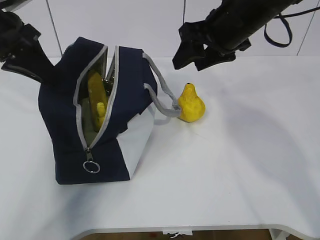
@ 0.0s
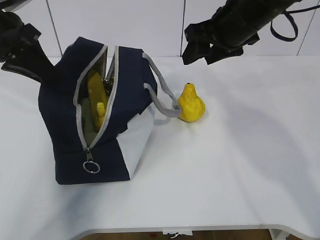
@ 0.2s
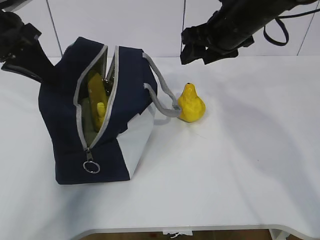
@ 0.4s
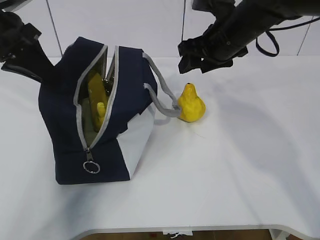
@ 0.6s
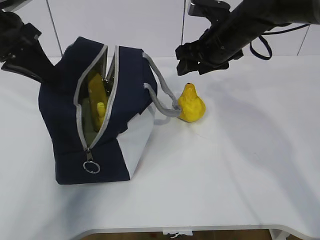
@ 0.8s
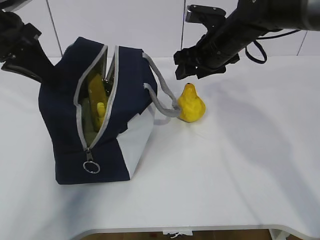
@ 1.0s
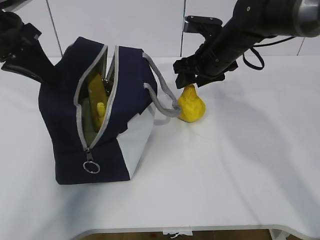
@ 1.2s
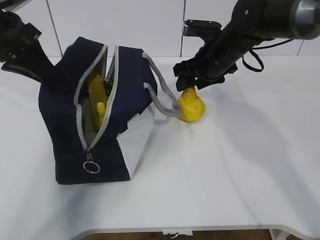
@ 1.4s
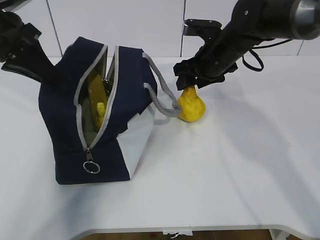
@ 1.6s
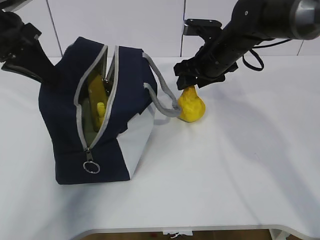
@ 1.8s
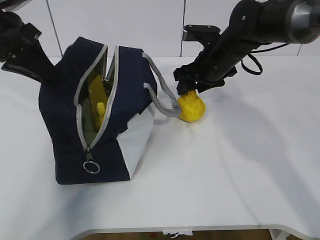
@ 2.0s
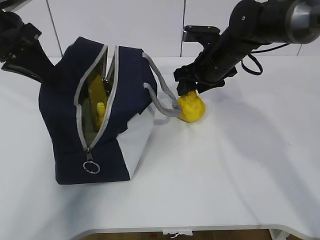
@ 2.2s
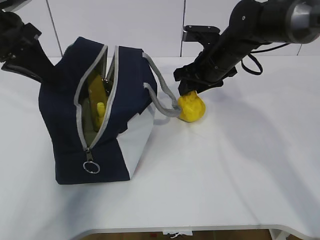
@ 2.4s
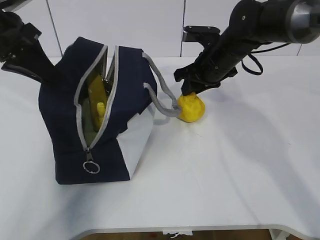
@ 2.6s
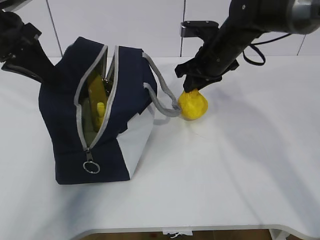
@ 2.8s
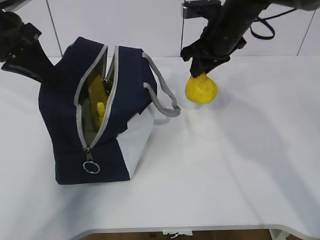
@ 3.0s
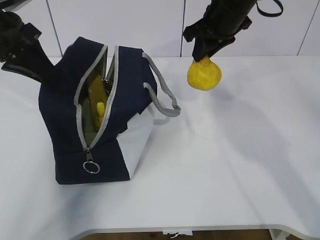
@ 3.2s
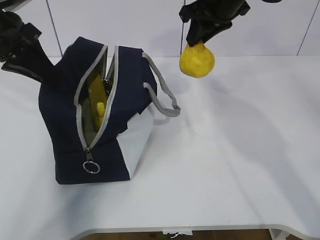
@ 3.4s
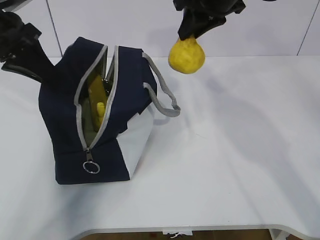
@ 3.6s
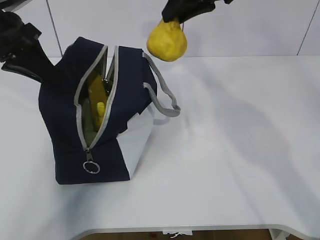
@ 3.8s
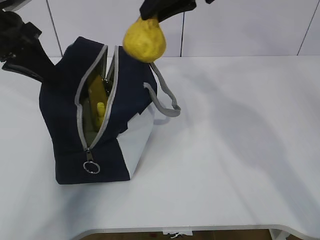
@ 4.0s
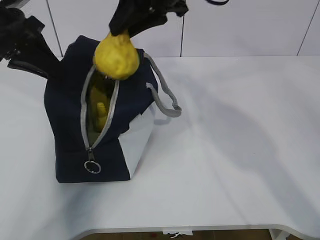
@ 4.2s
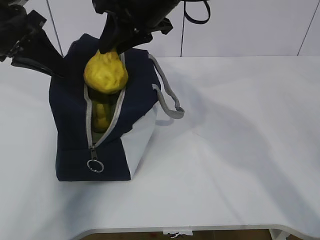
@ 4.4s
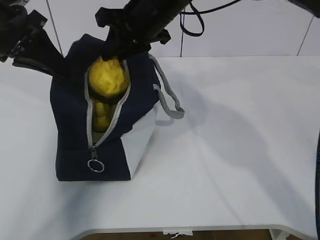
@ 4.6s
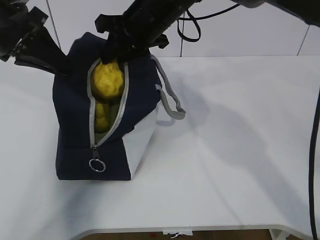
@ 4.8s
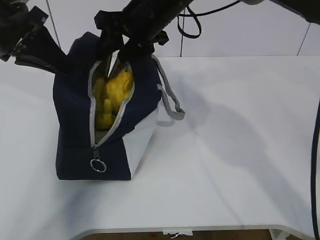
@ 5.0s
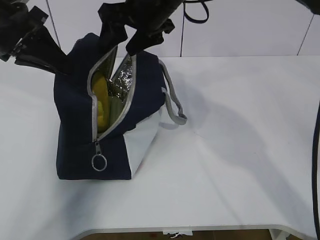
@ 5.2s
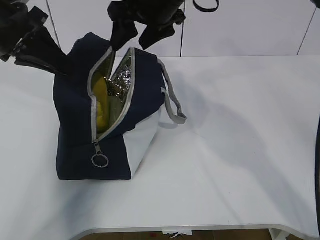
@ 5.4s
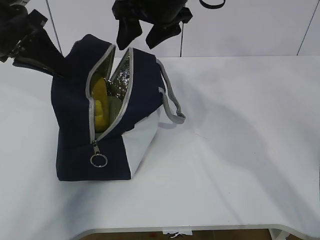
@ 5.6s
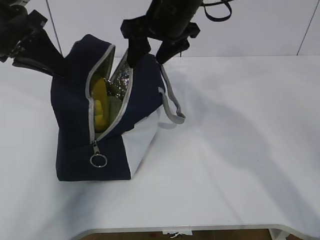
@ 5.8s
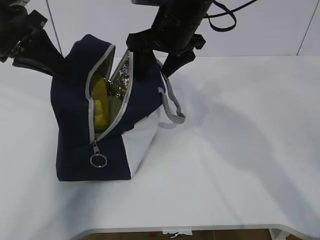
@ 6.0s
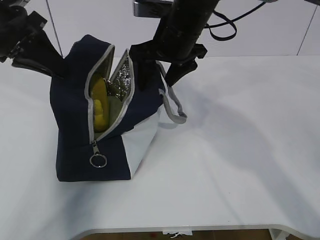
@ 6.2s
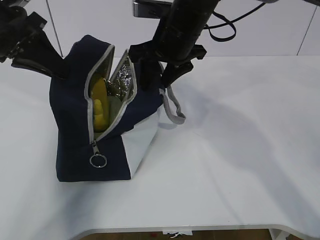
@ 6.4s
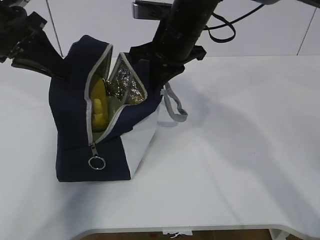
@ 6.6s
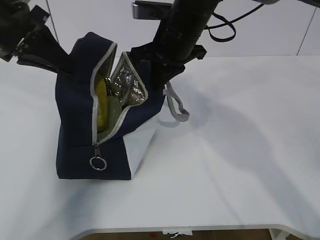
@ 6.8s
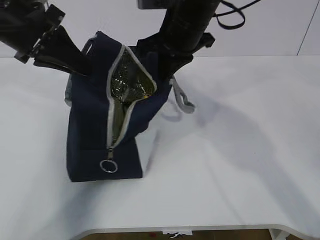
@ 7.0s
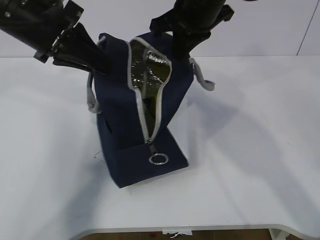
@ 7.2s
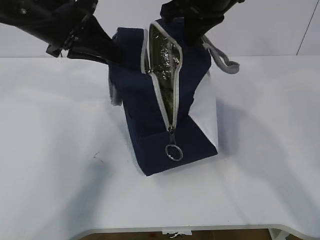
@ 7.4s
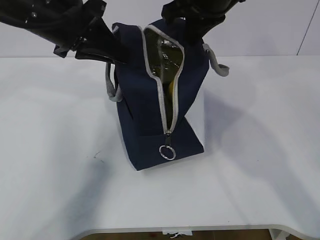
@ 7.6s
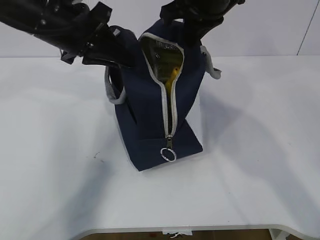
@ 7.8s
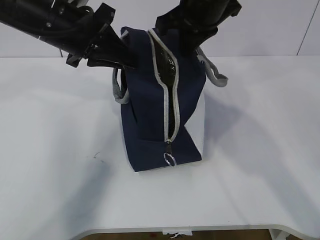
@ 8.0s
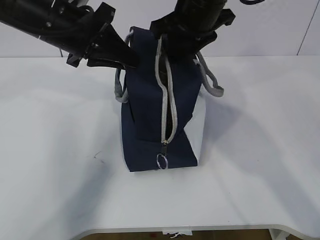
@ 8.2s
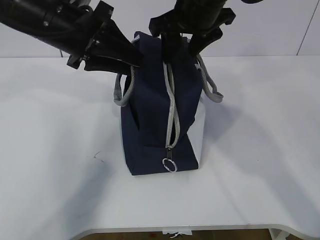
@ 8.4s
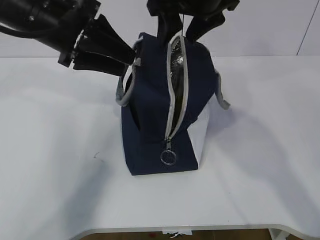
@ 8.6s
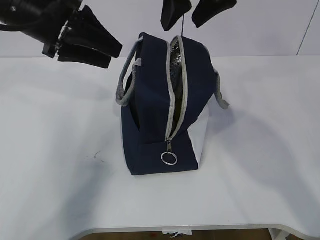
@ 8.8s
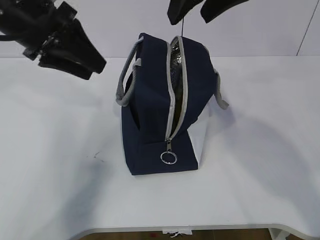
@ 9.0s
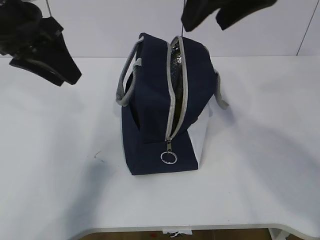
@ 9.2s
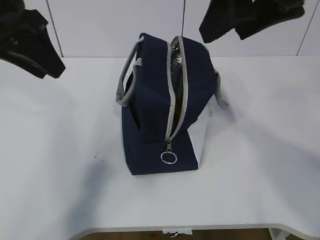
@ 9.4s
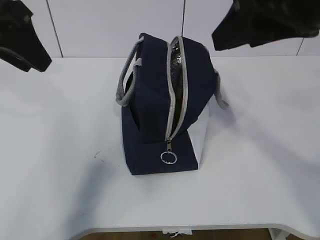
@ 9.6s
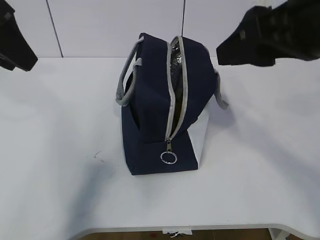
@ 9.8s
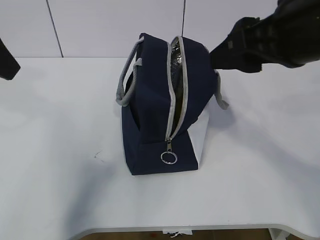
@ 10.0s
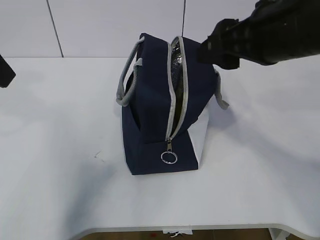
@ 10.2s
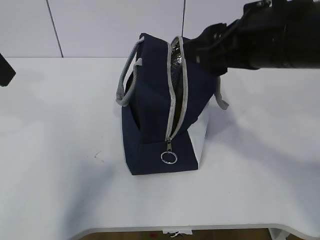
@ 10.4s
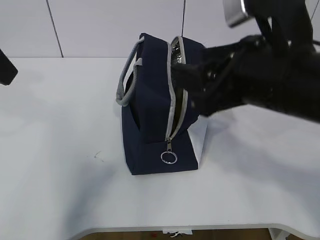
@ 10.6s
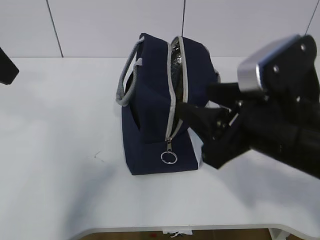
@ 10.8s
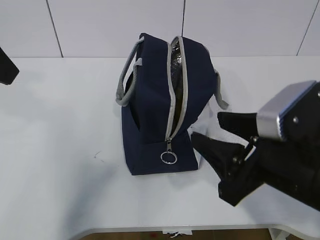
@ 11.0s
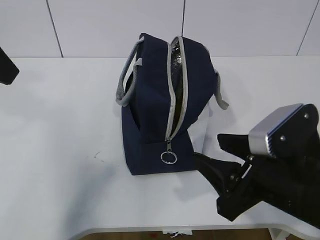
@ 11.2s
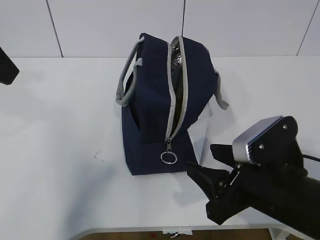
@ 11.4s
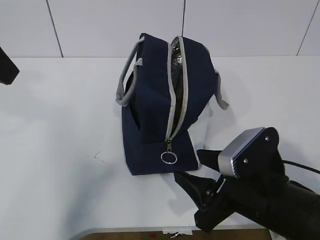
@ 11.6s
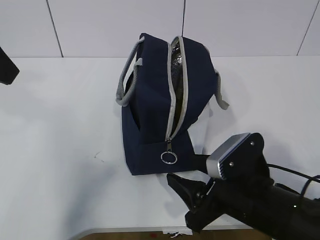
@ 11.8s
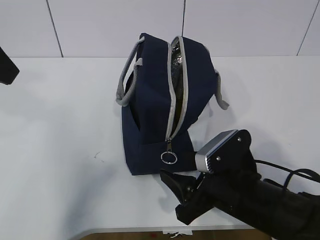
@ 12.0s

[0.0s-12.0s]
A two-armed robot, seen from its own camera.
Step, 0.2s to 1.4s: Grab the lunch bag with your right hand.
Step, 1.6s to 3.0s: Move the lunch bag to the right.
0.0s to 1.6s: The right gripper is displaced downward and forward by about 10 cm.
1.6s to 3.0s: The right gripper closes up.
3.0s to 4.4s: The right gripper moves to the left, upward and backward, about 15 cm.
4.4s to 6.0s: The right gripper opens its fingers.
6.0s to 7.6s: The right gripper goes some 5 cm upward, and closes. Meanwhile the left gripper shifts about 10 cm to the right.
7.6s to 9.0s: The left gripper opens its fingers. Meanwhile the right gripper moves about 5 cm, and opens its fingers.
9.0s to 10.4s: The left gripper moves backward, upward and to the left, roughly 15 cm; the right gripper shifts about 10 cm backward and downward.
10.4s to 12.0s: The right gripper heads downward, covering some 20 cm.

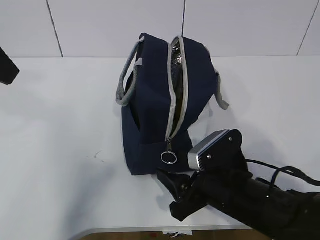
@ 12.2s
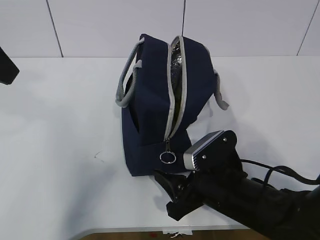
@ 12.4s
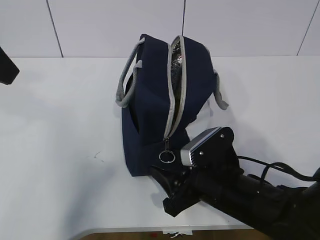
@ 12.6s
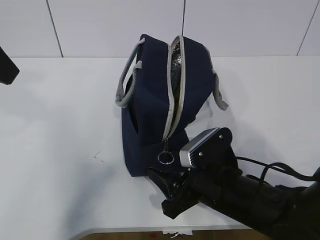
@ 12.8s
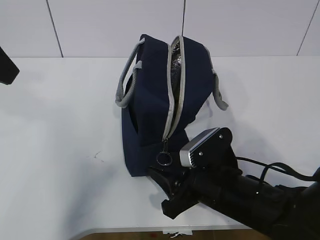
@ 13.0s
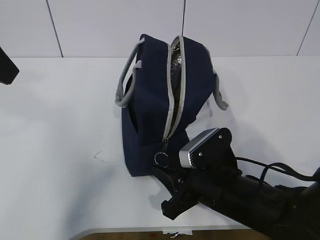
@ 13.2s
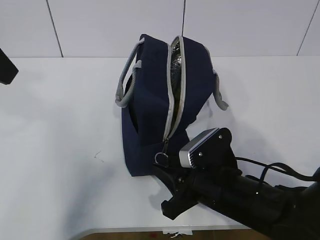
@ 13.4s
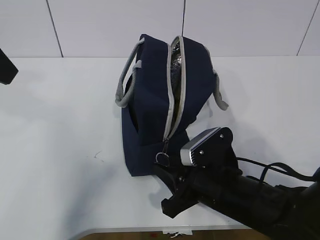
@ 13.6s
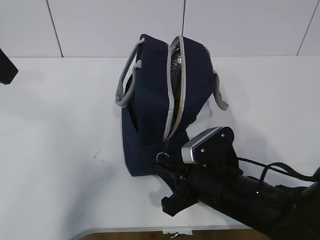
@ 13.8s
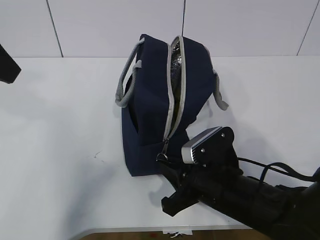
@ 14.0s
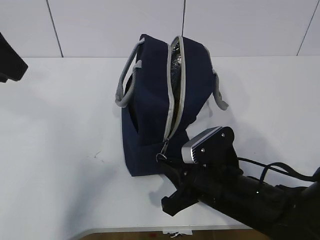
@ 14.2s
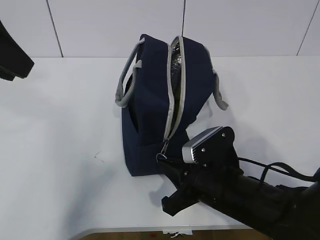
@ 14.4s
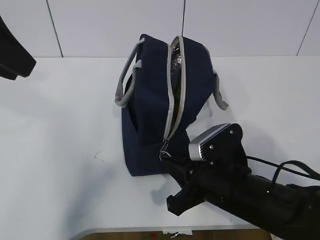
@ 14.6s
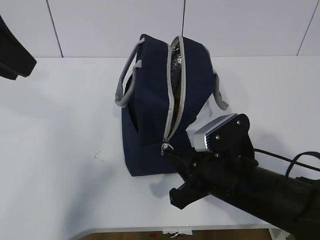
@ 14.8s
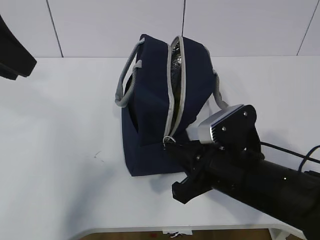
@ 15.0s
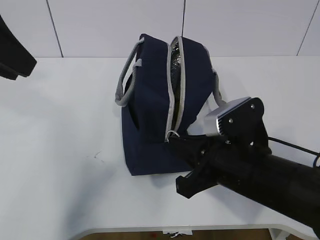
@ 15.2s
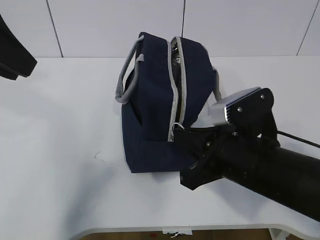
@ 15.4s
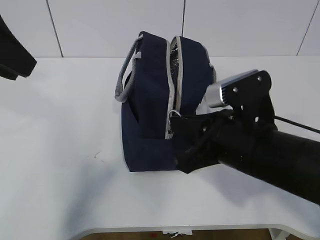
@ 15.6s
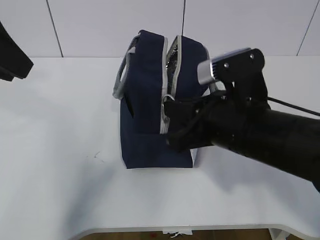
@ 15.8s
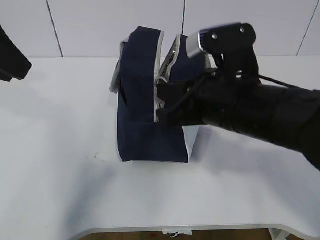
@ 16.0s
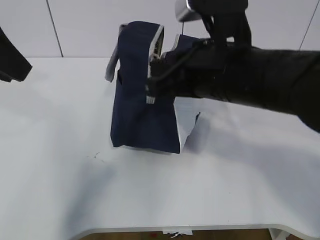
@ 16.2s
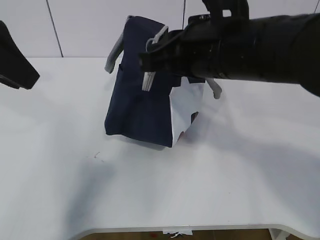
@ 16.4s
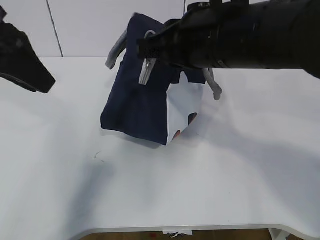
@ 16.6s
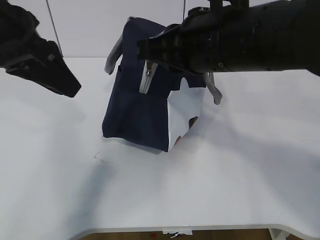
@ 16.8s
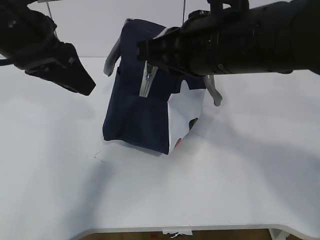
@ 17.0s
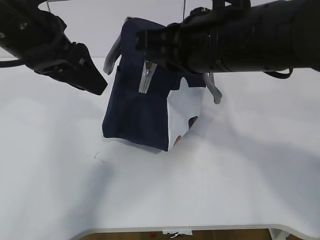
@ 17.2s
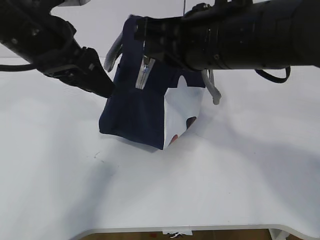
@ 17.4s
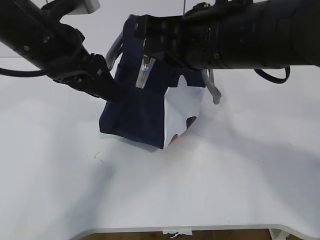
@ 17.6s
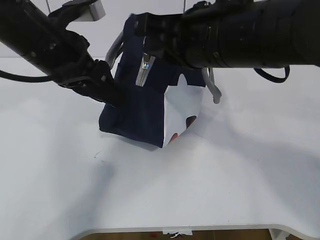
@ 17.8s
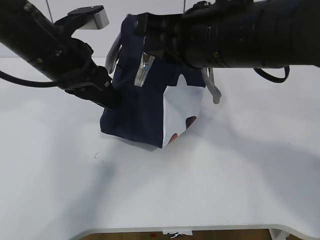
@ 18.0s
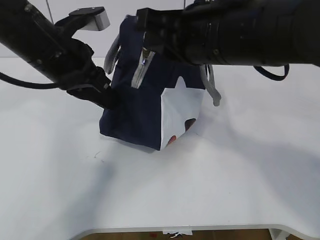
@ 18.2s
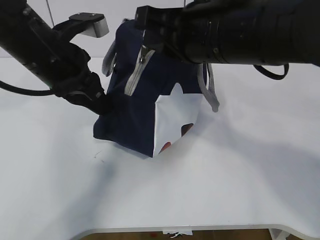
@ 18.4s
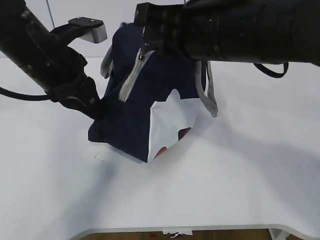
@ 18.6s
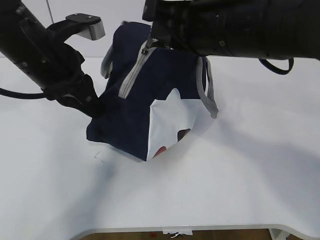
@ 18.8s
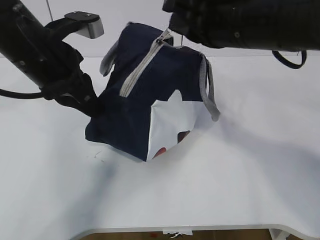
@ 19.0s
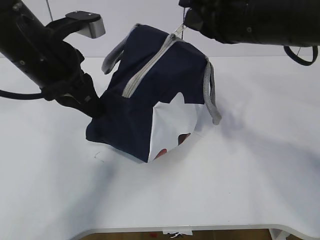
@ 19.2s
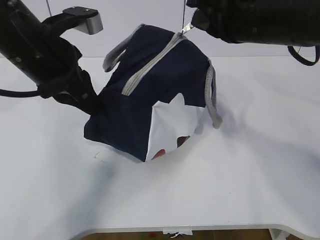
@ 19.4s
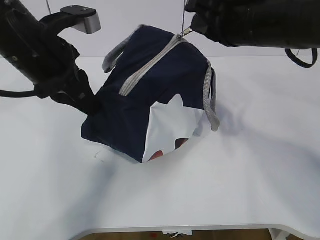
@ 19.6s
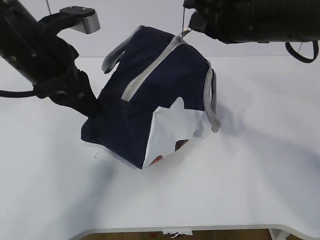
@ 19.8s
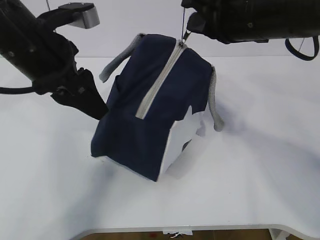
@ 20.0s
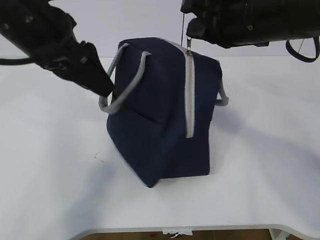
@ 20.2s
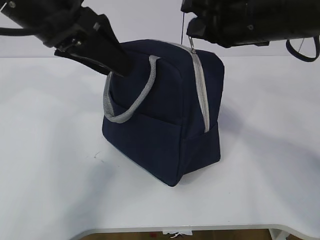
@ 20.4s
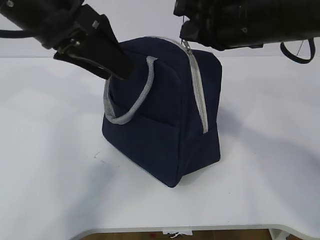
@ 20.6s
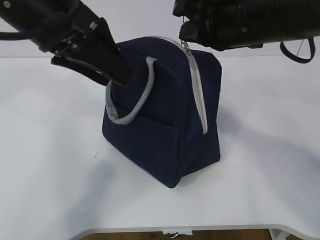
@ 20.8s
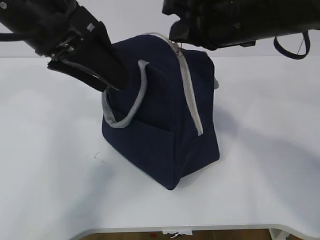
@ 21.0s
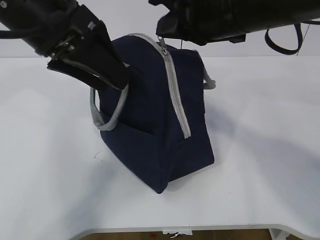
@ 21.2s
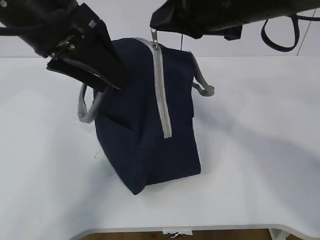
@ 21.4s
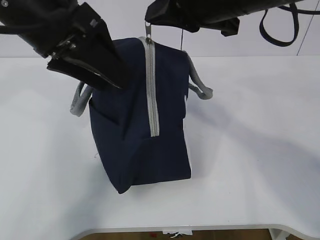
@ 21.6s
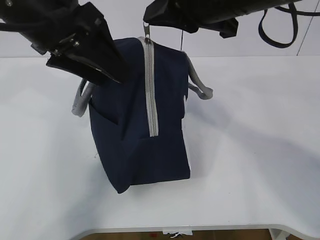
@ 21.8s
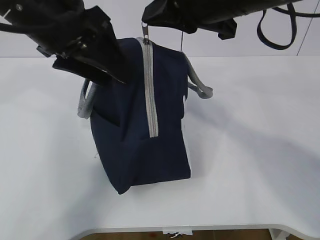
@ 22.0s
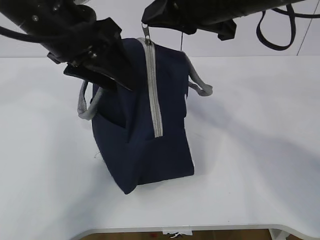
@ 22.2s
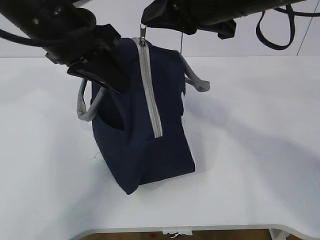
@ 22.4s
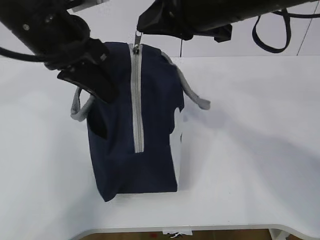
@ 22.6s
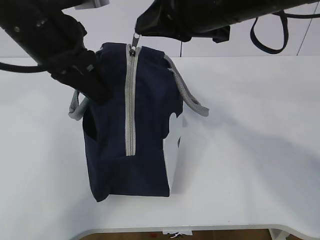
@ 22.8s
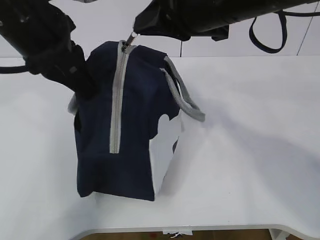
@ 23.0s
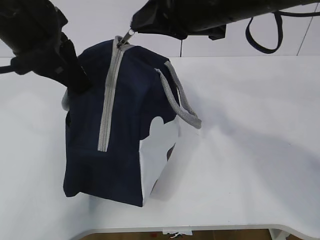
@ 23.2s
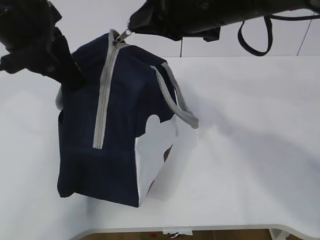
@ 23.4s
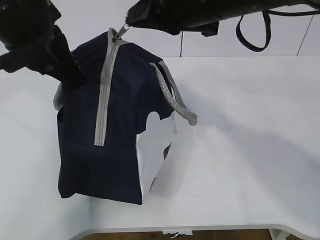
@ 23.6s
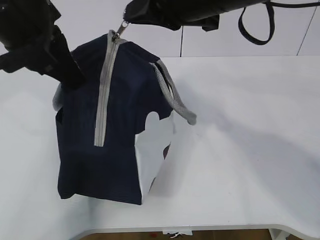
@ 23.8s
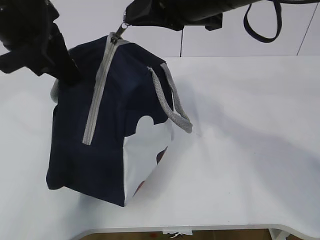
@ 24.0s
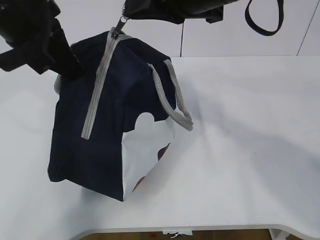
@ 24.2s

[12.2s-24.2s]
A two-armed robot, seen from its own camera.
Step, 12.4s to 24.0s: Grab the lunch bag with your left hand.
12.2s to 13.8s: The right gripper closes up.
13.8s to 15.2s: The right gripper heads upward, covering some 5 cm, and closes its fingers.
15.2s to 16.6s: The right gripper travels upward by roughly 15 cm.
16.6s to 18.2s: The left gripper travels to the right and downward by roughly 10 cm, and closes its fingers.
18.2s to 19.8s: The right gripper shifts about 5 cm to the right.
19.8s to 21.2s: The left gripper travels upward by roughly 5 cm, and opens; the right gripper moves about 5 cm.
21.2s to 22.6s: The left gripper closes.
